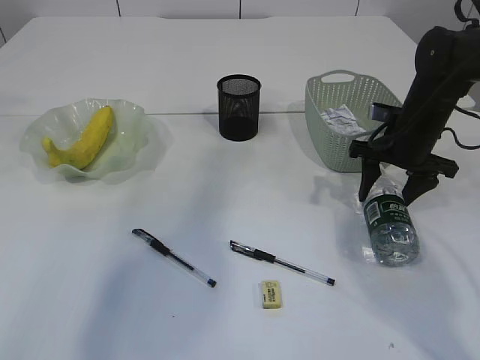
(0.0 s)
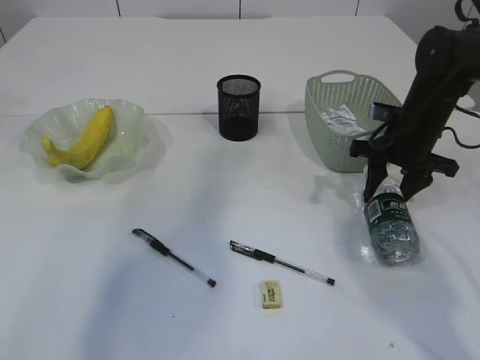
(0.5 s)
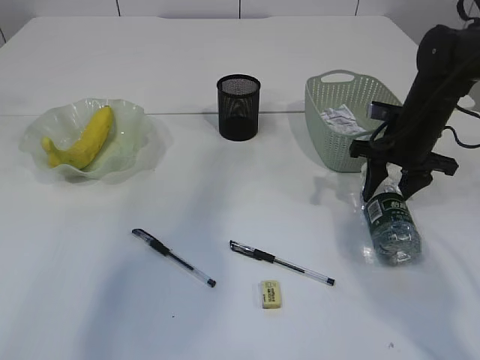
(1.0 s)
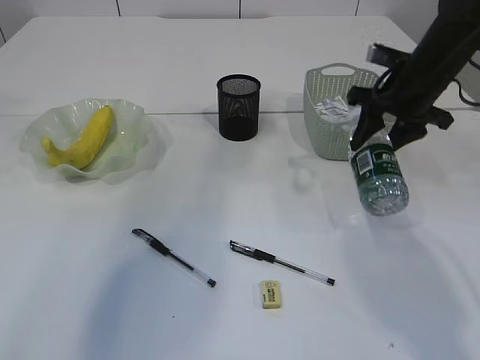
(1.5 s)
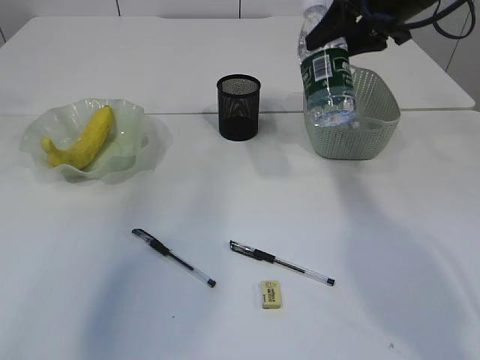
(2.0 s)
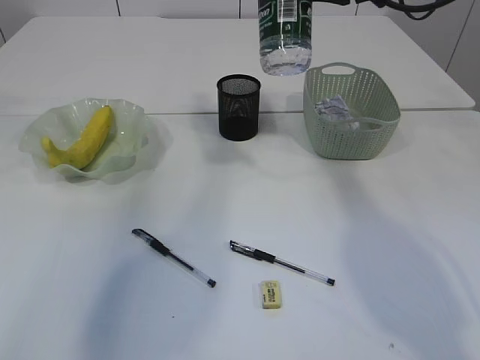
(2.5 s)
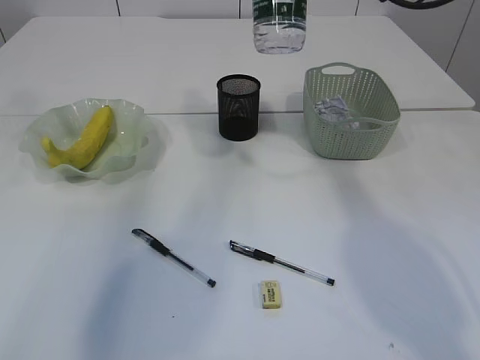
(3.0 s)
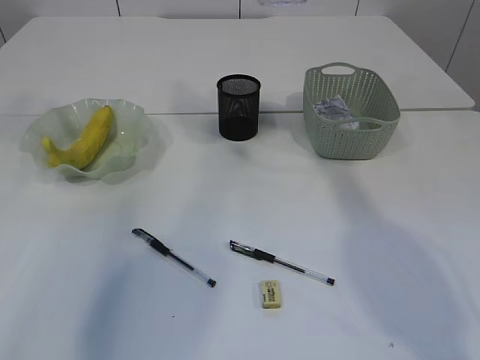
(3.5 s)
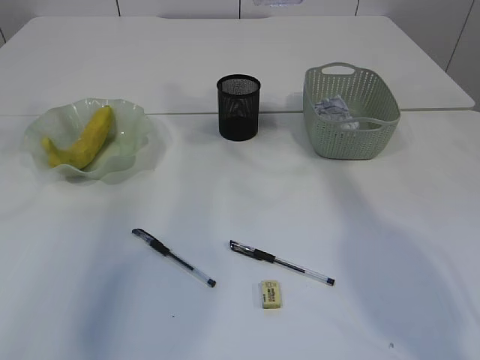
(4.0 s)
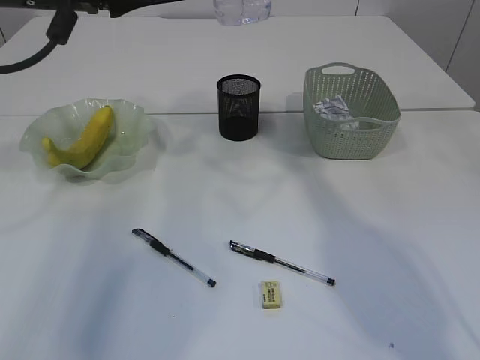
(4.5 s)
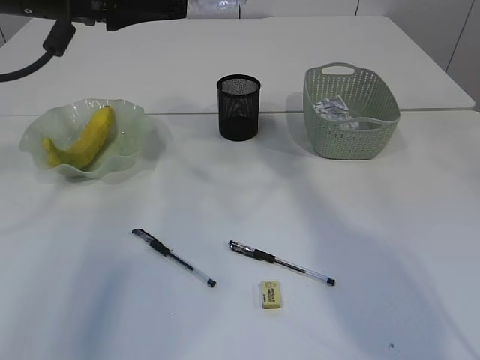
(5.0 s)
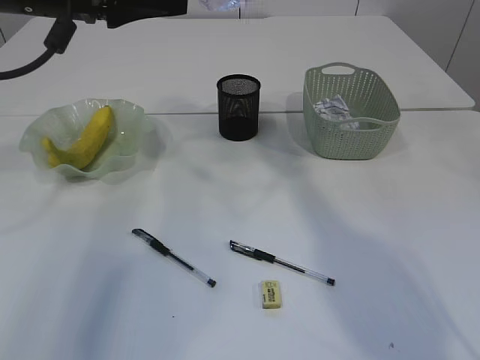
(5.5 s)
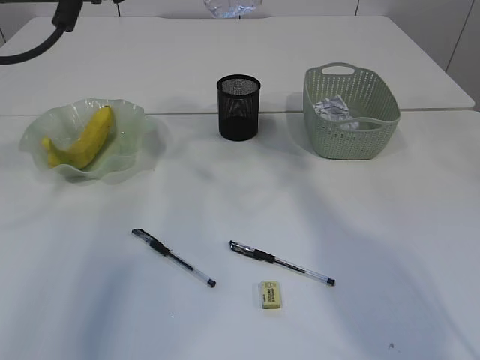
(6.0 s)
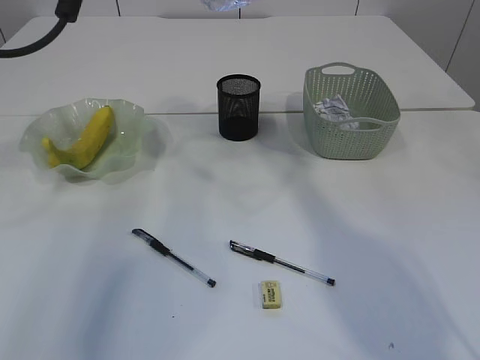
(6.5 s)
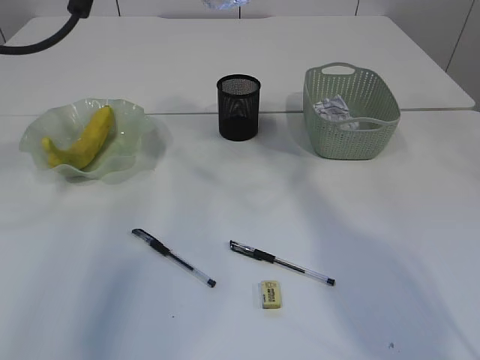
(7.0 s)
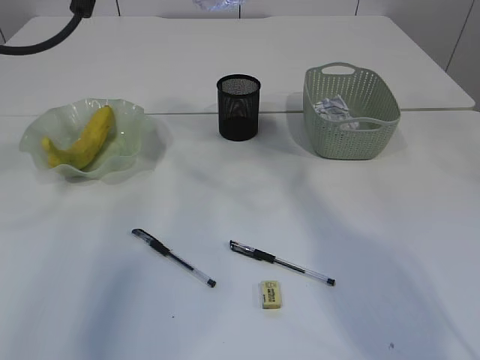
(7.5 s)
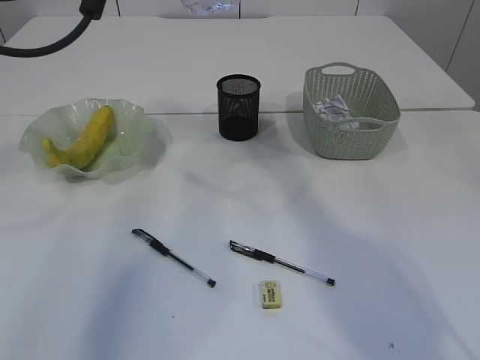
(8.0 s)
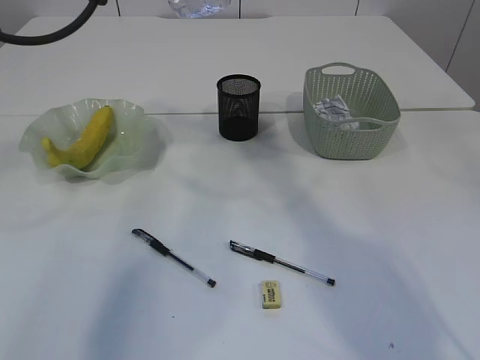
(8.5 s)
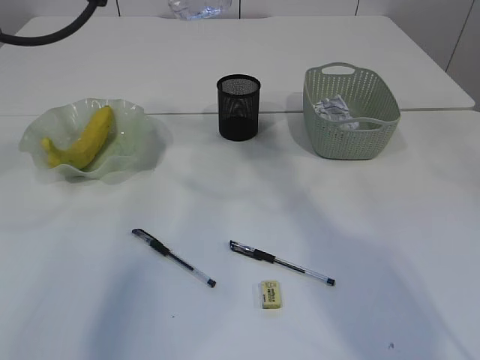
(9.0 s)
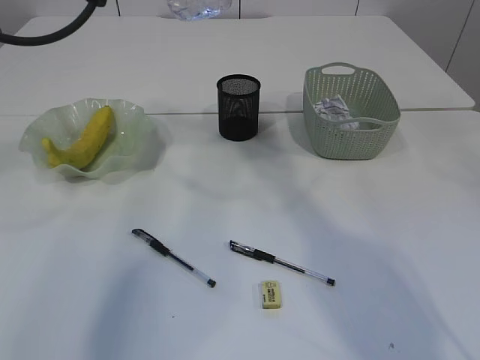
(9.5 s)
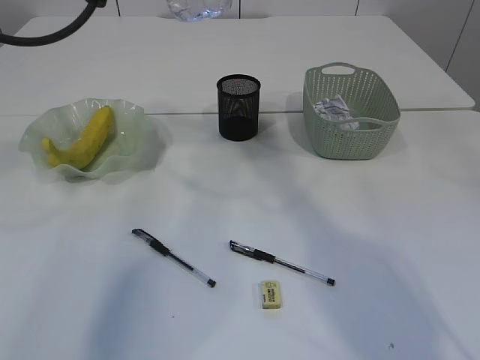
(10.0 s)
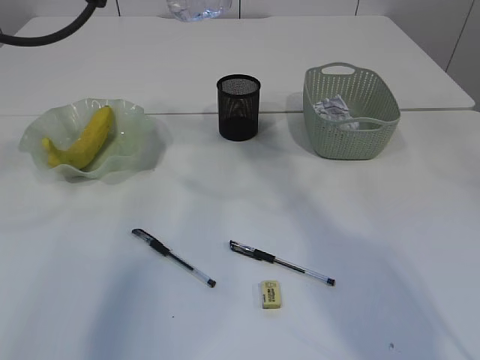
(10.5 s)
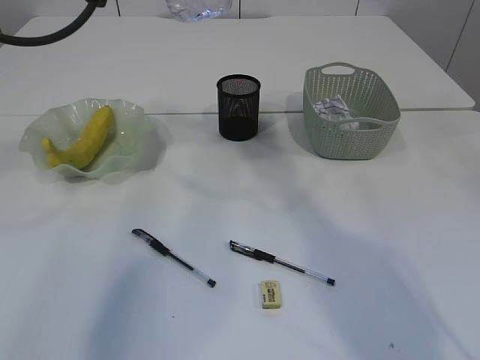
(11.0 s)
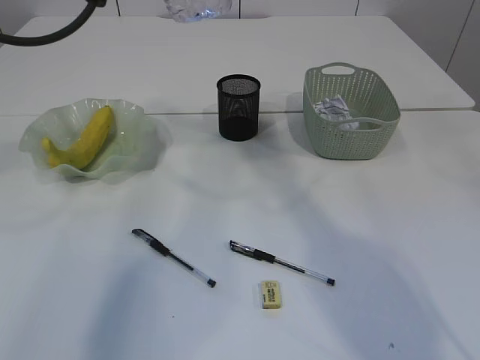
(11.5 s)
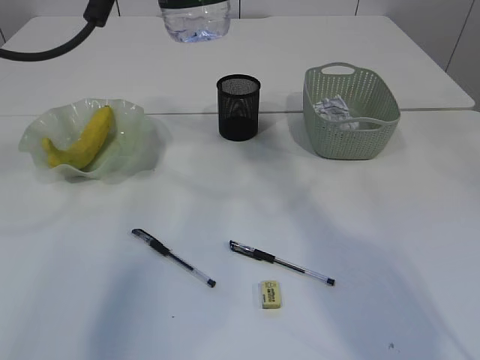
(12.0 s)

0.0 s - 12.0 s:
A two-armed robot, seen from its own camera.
0.0 s - 2.0 s: The right gripper heads upward, covering approximately 15 cm.
2.0 s - 4.0 s: The left gripper heads to the right, covering some 5 cm. Meanwhile the right gripper moves upward, approximately 10 cm.
4.0 s - 6.0 s: The left gripper is displaced downward by some 5 cm. Meanwhile the right gripper goes approximately 5 cm to the left.
6.0 s - 8.0 s: The left gripper opens its fingers.
8.0 s - 12.0 s: There are only small adjustments of the grippers.

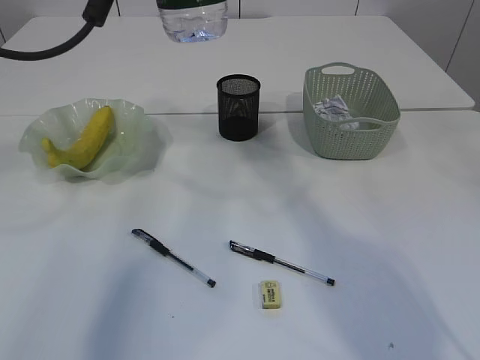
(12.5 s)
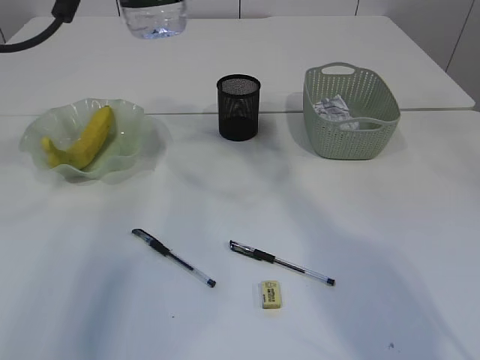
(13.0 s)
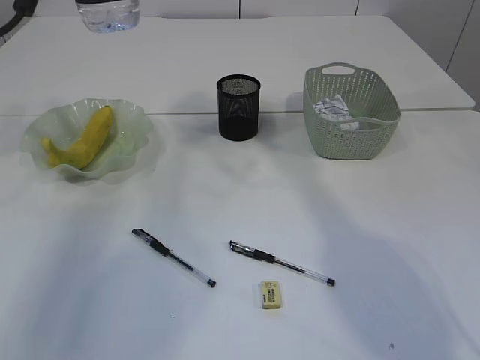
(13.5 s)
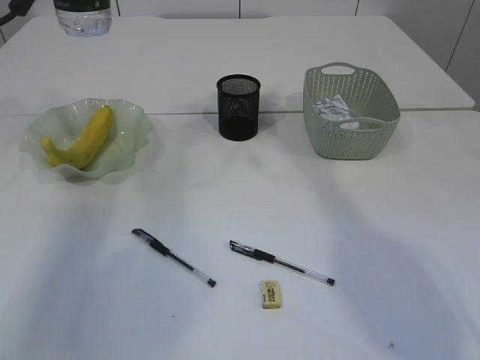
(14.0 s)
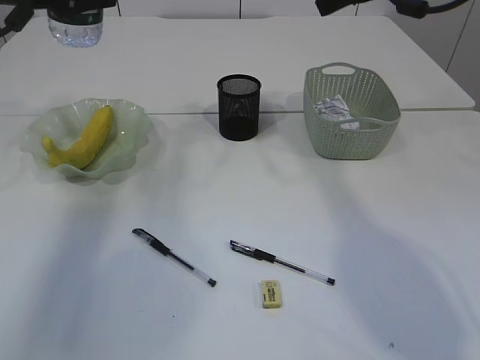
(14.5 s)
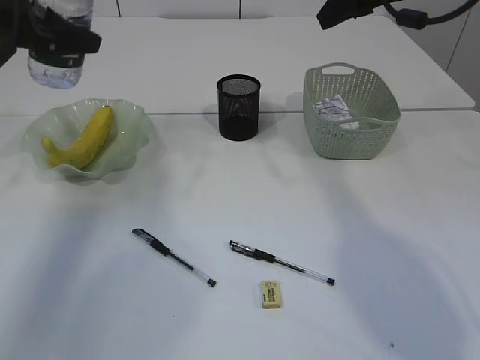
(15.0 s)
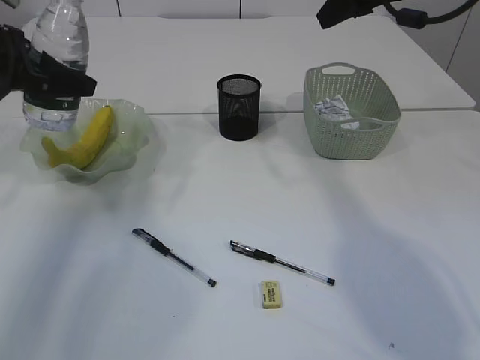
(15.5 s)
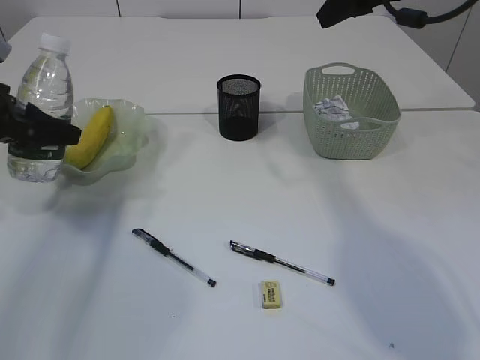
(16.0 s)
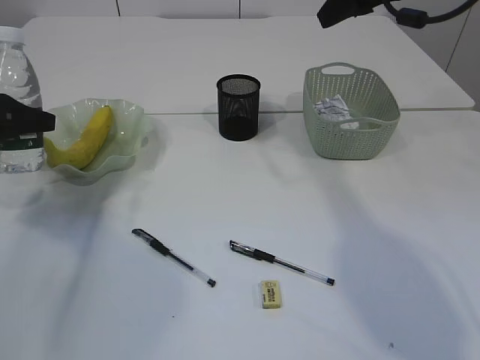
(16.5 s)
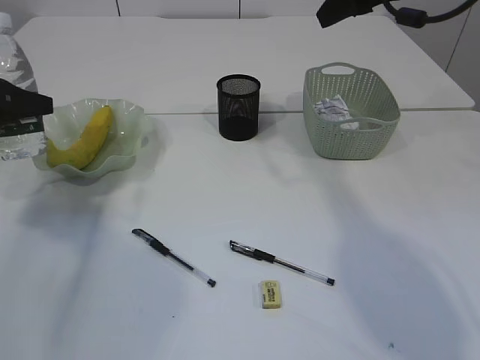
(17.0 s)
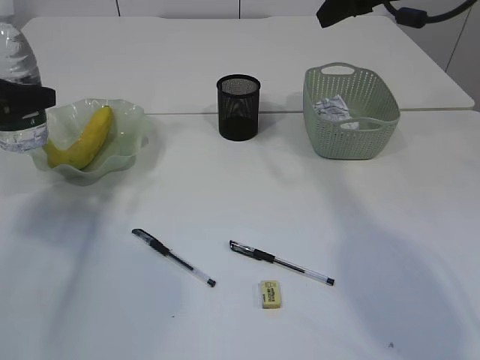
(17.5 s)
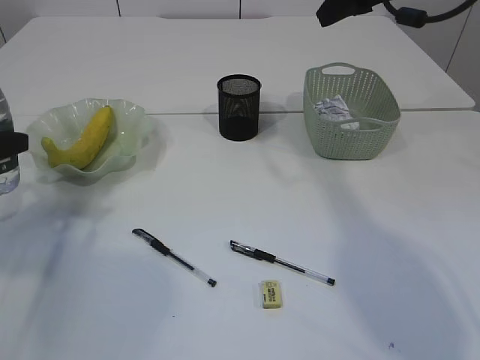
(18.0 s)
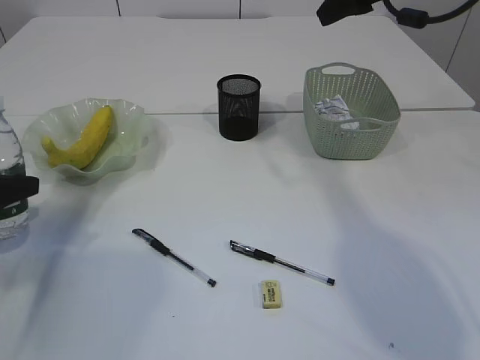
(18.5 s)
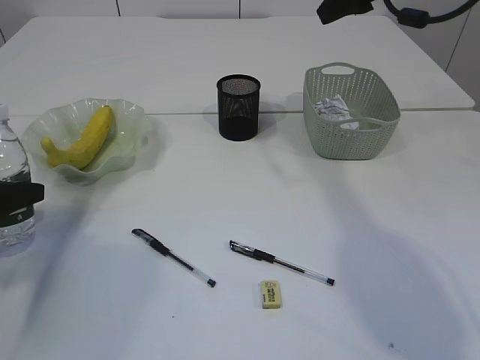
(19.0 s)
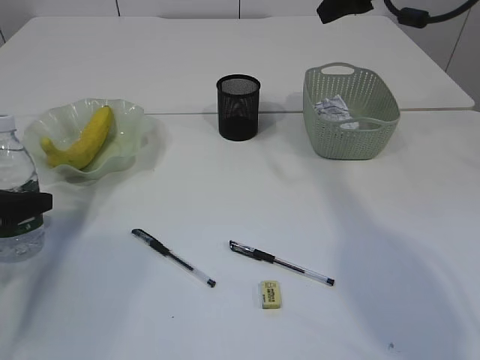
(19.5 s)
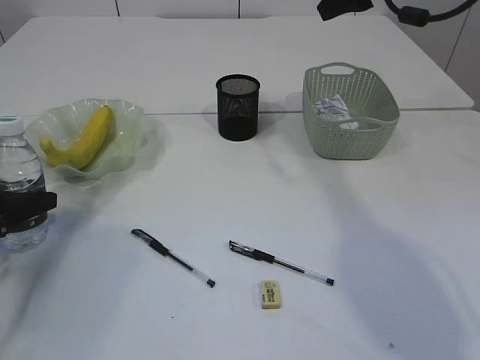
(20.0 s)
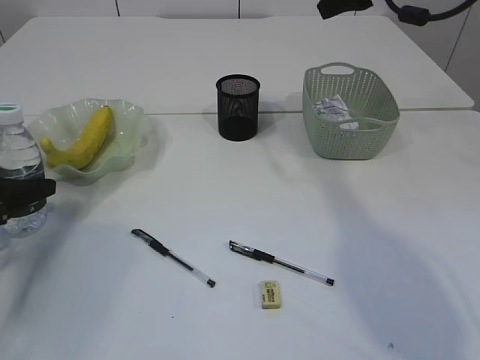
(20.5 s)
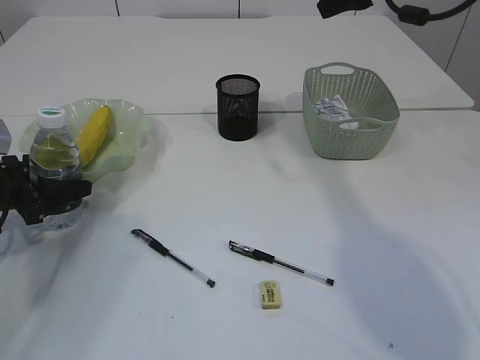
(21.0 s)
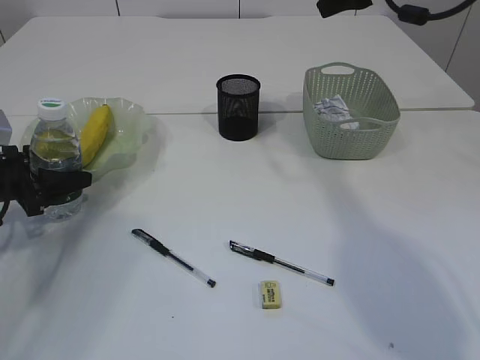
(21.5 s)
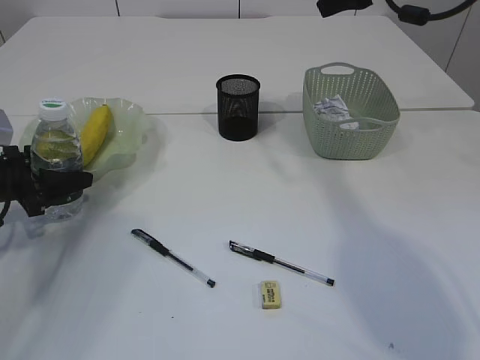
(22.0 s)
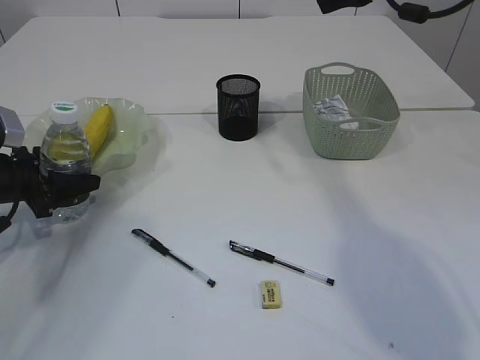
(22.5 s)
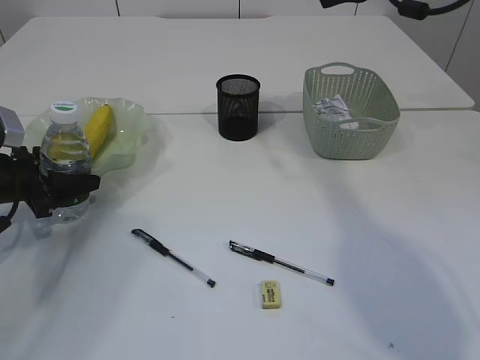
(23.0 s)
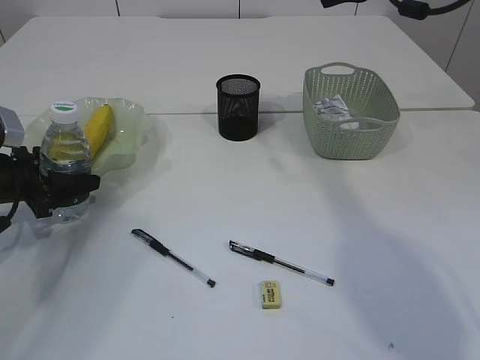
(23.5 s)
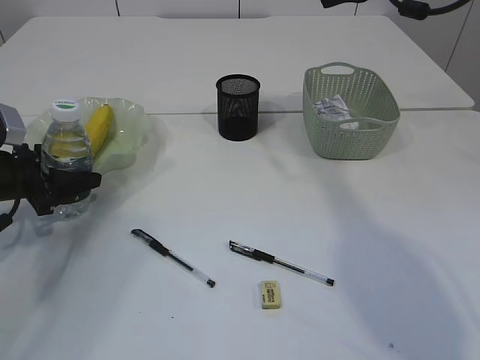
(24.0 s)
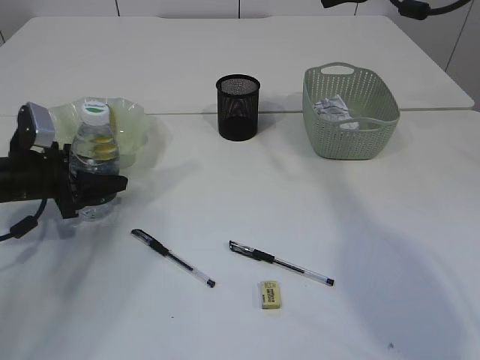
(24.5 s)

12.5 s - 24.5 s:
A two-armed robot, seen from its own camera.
12.5 s - 14.5 s: The left gripper shifts about 15 cm to the left and forward. The right gripper heads to the right, downward and forward, covering approximately 15 cm.
14.5 s - 16.5 s: The left gripper heads downward, to the left and backward, covering roughly 15 cm.
16.5 s - 18.5 s: The left gripper is displaced downward and backward by approximately 10 cm.
18.5 s - 20.5 s: The grippers move only a little.
20.5 s - 22.5 s: The left gripper shifts by some 5 cm.
22.5 s - 24.5 s: The grippers stay close to where they were, moving slightly.

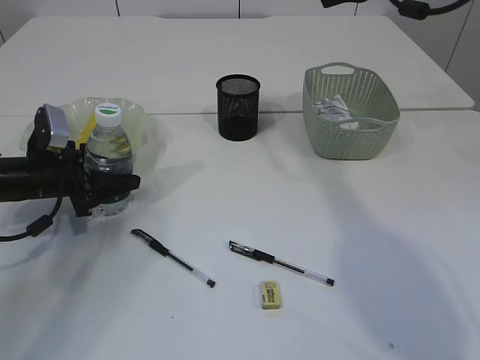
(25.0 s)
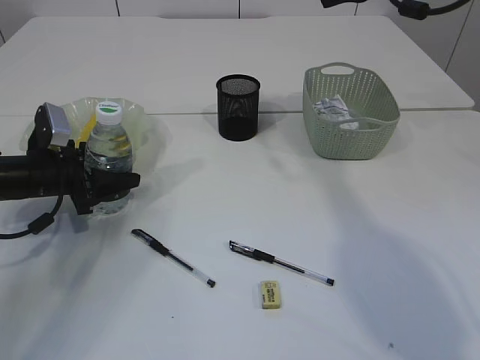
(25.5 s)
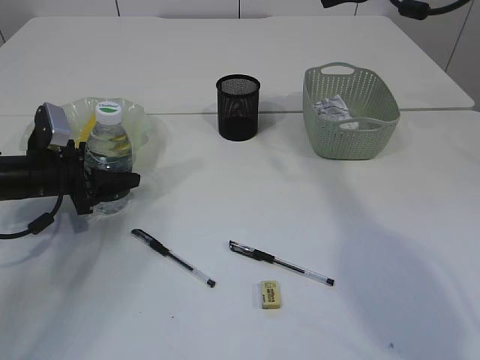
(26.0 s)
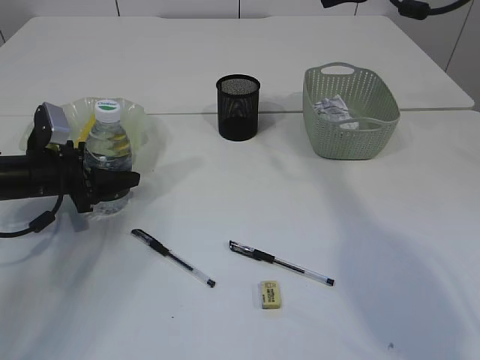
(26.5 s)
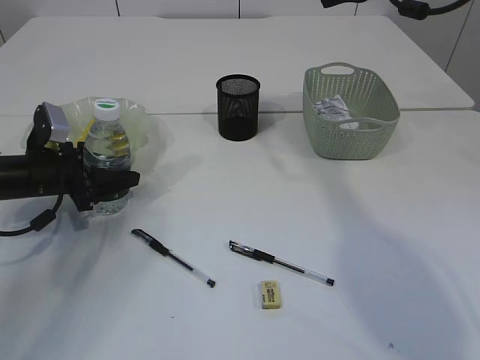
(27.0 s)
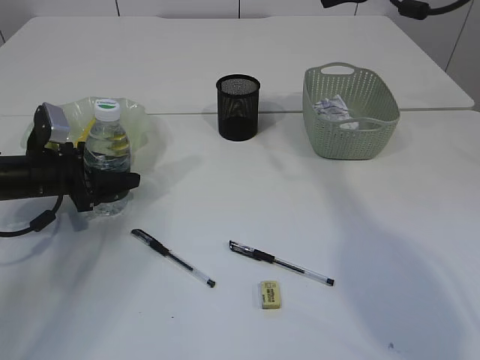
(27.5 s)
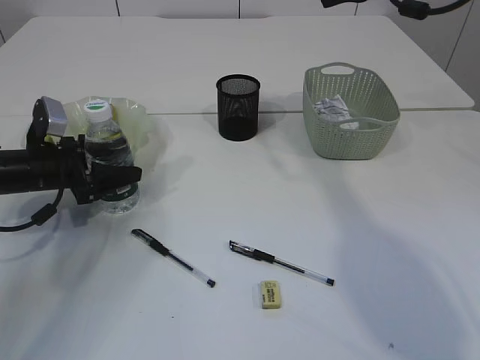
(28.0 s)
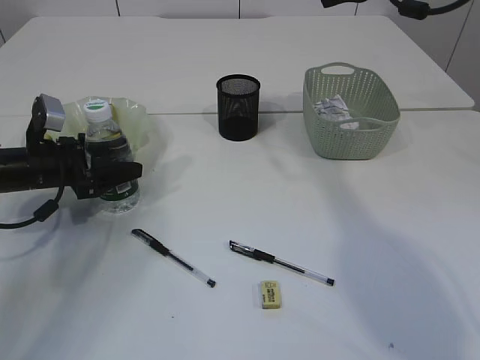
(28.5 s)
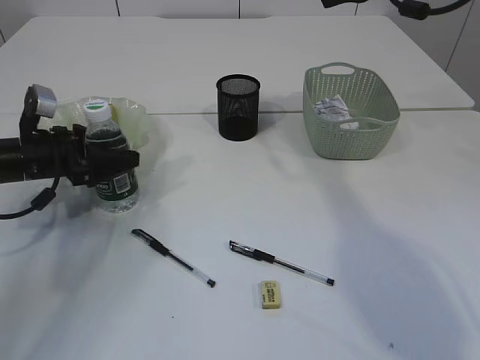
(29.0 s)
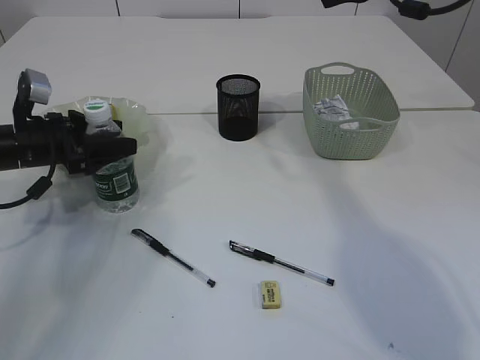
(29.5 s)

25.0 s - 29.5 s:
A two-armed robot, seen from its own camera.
25.0 s - 27.0 s: Neither gripper changes place.
27.0 s - 29.5 s: There are only small adjustments of the grippers.
